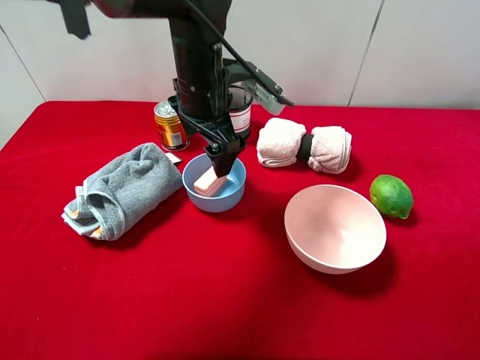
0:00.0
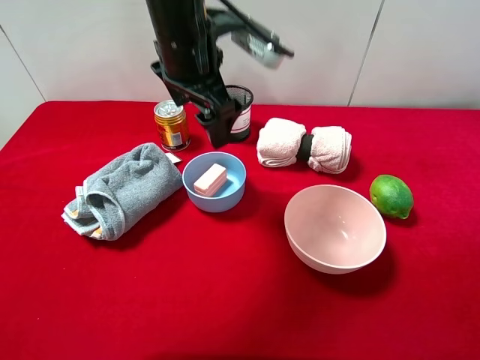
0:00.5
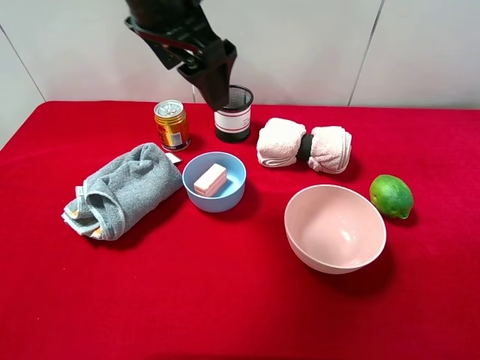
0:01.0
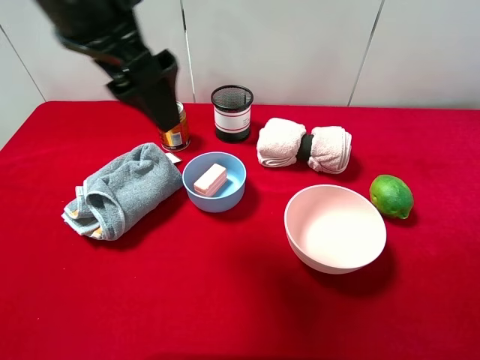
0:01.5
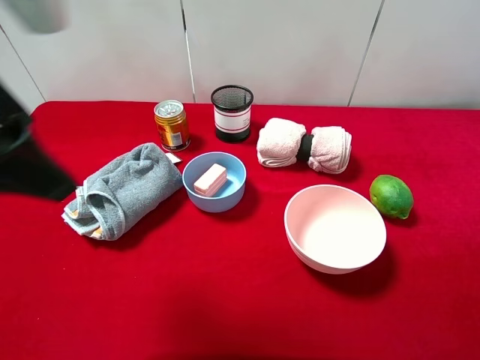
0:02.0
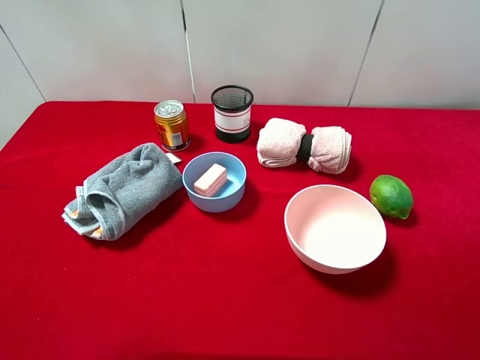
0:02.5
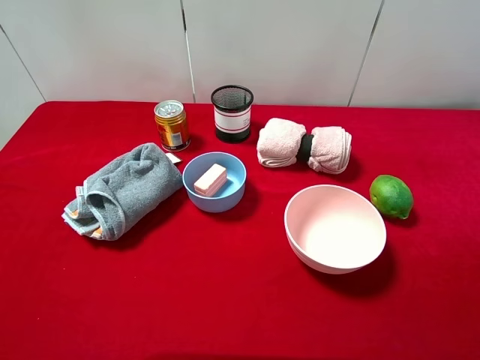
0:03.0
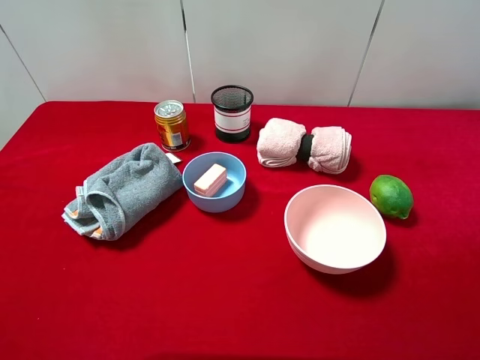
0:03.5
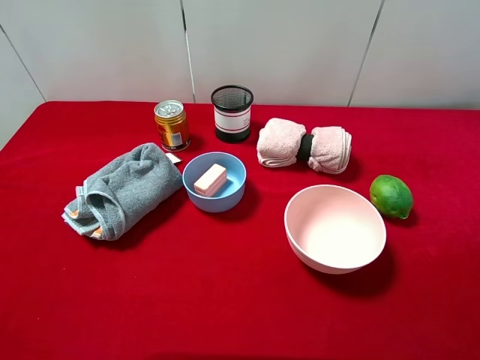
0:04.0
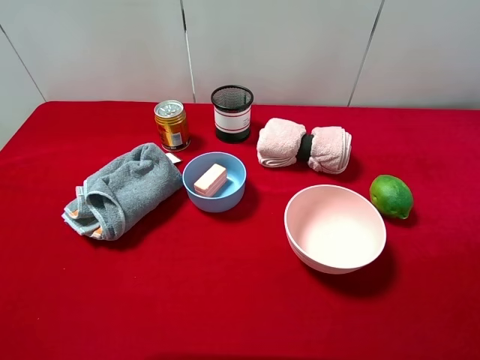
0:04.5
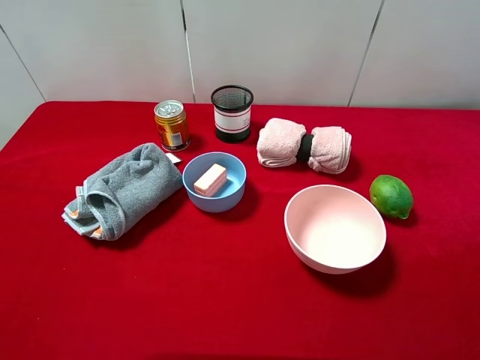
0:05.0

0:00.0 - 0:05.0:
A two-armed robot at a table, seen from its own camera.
Task of the whole recording: pick up an item with a gripper and place it in a random container on the desktop.
0:00.0 - 0:02.5: The left gripper is displaced backward, to the left and upward by some 40 cm.
